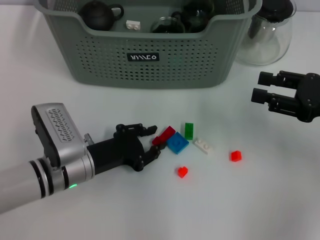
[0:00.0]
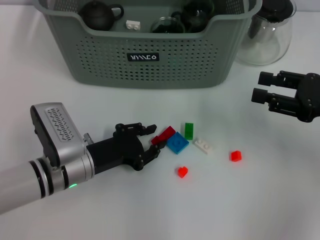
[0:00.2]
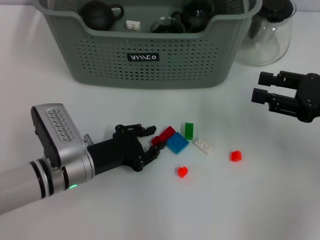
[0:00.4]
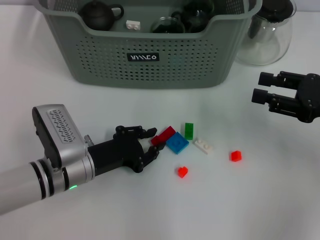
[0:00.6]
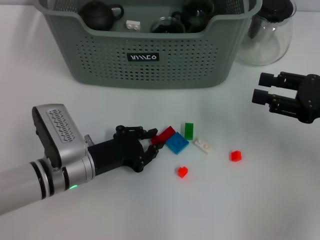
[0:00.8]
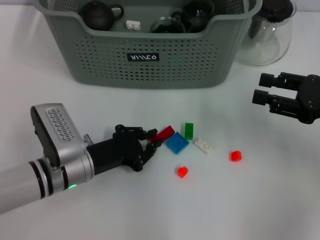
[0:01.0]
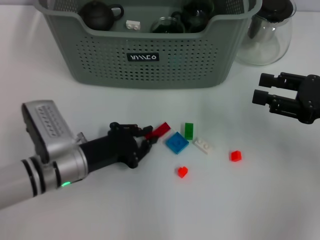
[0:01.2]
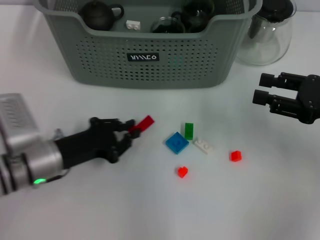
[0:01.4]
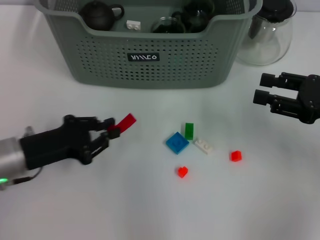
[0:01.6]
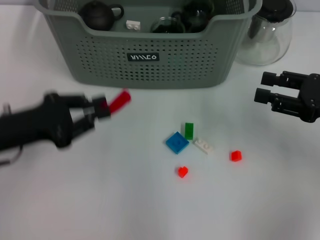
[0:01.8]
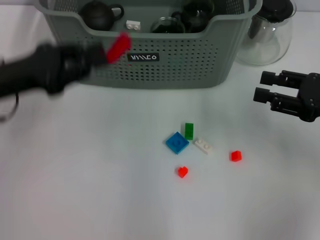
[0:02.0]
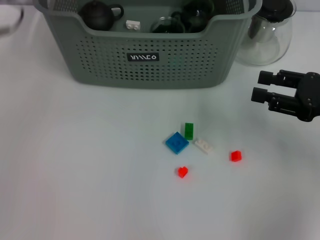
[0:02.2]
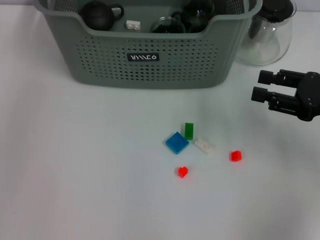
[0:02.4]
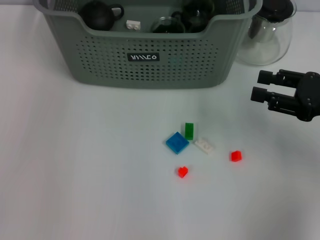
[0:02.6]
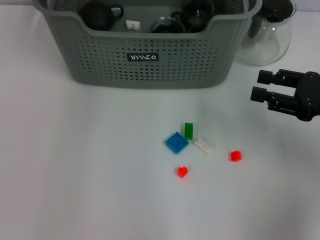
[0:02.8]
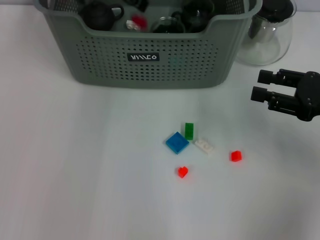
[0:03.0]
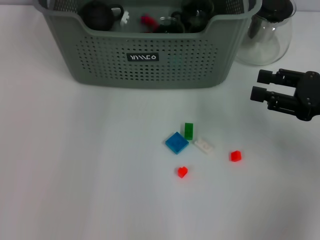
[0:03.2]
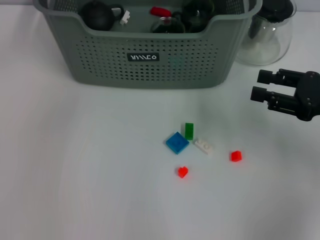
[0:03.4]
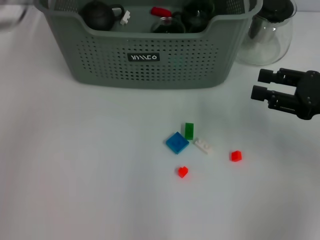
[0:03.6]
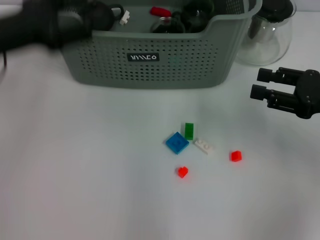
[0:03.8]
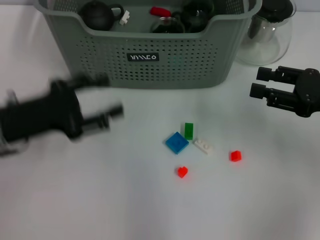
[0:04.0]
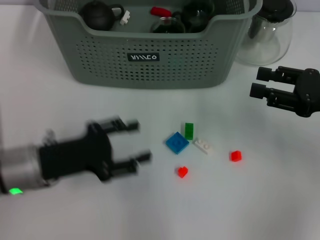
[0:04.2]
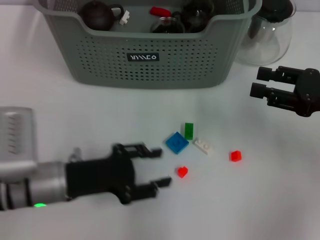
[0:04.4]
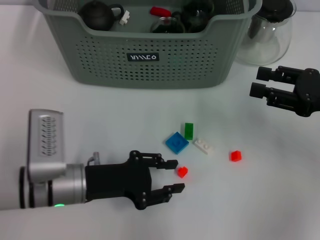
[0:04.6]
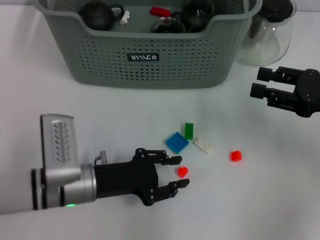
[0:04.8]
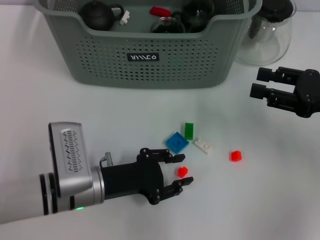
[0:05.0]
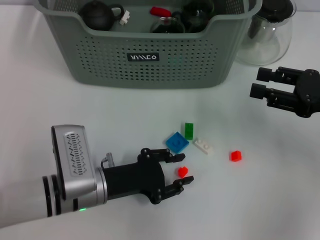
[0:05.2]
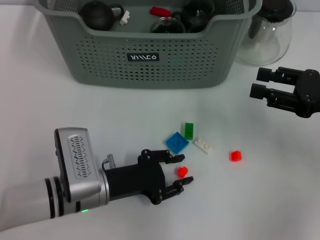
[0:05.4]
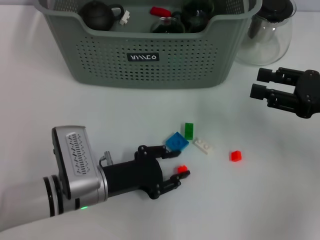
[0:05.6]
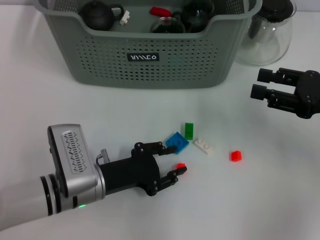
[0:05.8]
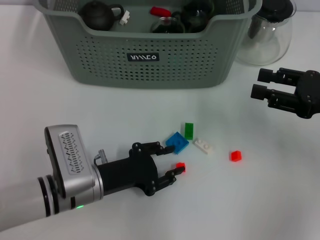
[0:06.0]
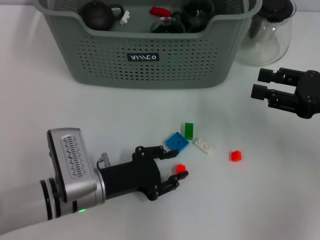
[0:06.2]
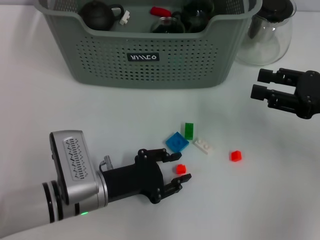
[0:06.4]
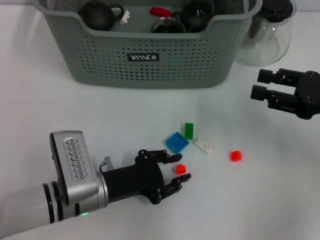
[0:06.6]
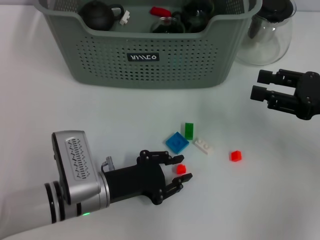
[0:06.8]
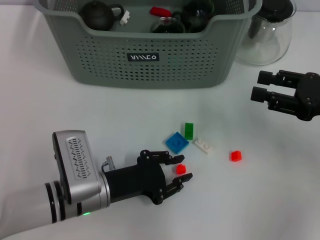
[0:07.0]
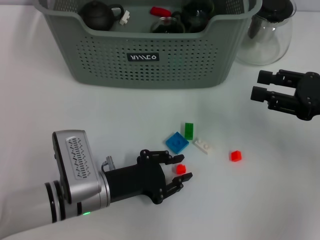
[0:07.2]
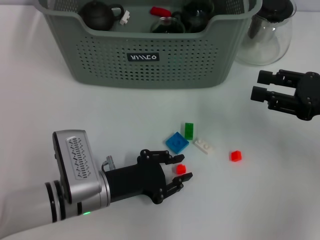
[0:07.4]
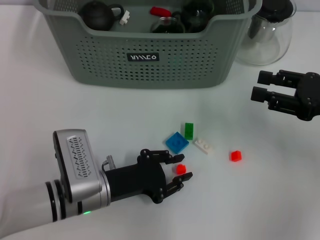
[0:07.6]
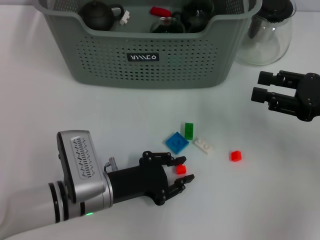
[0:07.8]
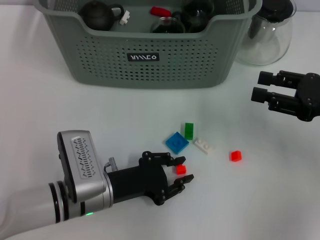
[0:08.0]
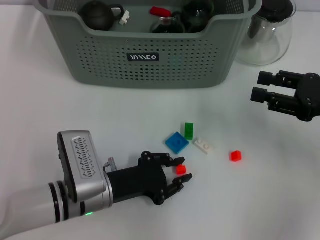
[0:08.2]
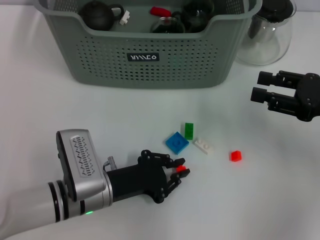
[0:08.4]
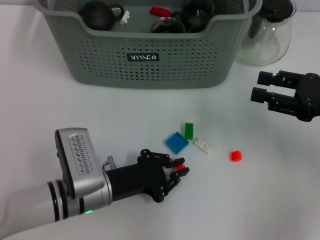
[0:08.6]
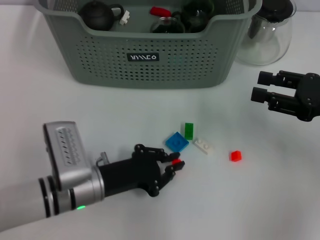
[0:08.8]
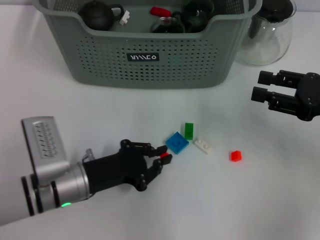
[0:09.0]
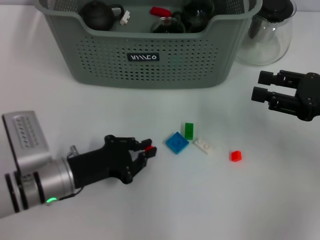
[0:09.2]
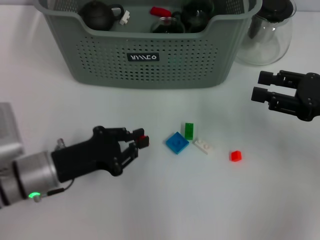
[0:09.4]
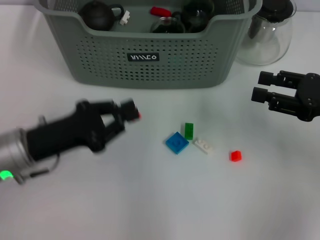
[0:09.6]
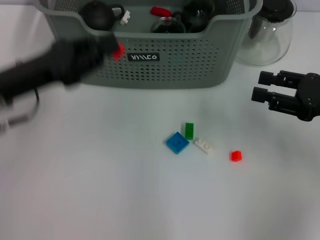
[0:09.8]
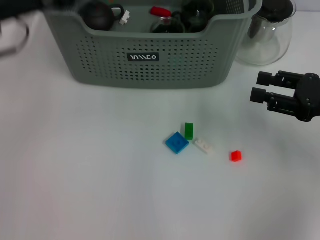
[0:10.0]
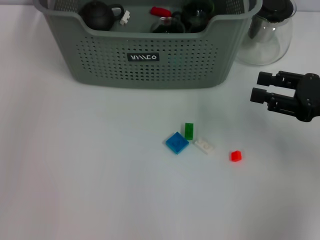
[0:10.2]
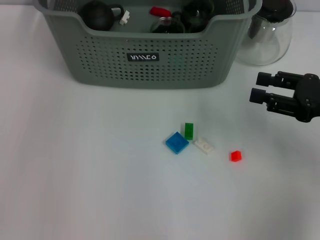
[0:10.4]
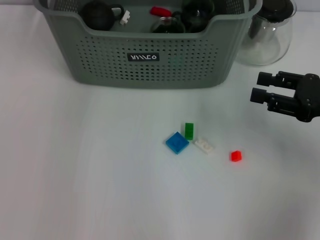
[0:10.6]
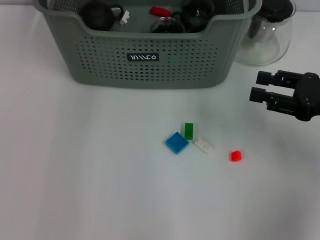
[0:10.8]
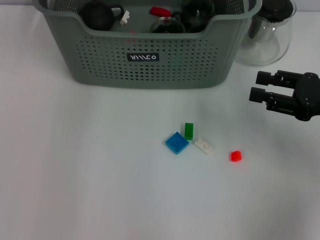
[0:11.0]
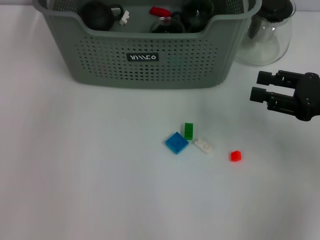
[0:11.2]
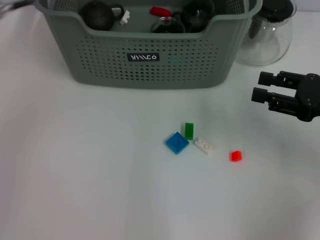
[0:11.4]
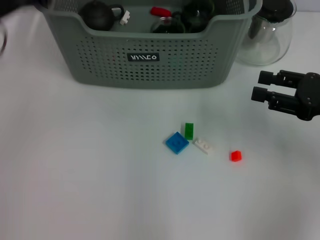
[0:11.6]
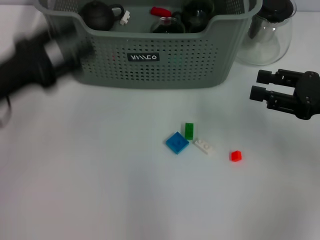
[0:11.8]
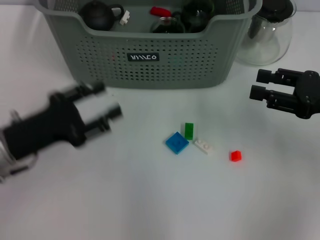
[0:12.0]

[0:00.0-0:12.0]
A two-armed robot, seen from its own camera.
Task of the whole recording: pick up the teacup on the table and place it into the storage bin, pick up the block on the table and place it into the storage bin.
Step, 0:01.2 to 0:03.4: Place the red block in the storage box with left gripper.
Step, 0:03.6 to 0:08.6: Grasp the orange block with left gripper.
Step, 0:08.8 to 0:11.2: Place the orange block in the storage box with left gripper.
0:00.0 to 0:01.6: The left gripper is displaced to the left by approximately 10 cm.
0:01.6 to 0:03.0: The left gripper is displaced forward, upward and to the right by some 30 cm.
0:03.0 to 0:04.4: The left gripper moves backward and downward, approximately 30 cm, and opens up.
0:04.4 to 0:06.0: The left gripper shifts by approximately 5 cm.
0:06.0 to 0:07.6: Both grippers stay about where they are.
0:07.6 to 0:09.0: The grippers stay close to where they were, moving slightly.
0:09.0 to 0:10.4: The left gripper moves upward and forward, approximately 35 cm.
0:10.4 to 0:12.0: The left gripper goes approximately 30 cm backward and downward, and opens up.

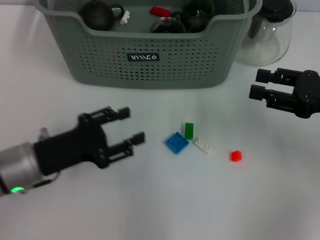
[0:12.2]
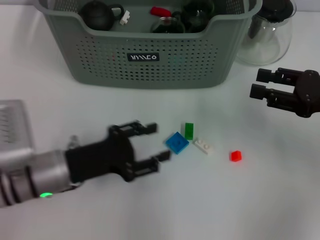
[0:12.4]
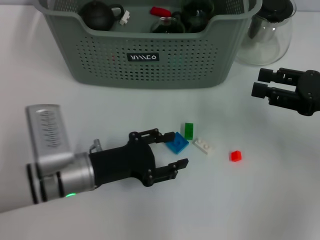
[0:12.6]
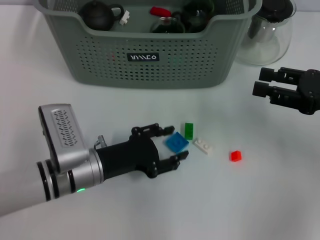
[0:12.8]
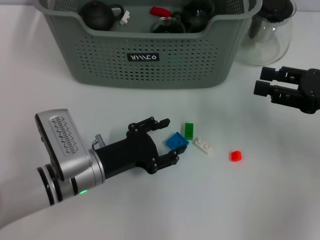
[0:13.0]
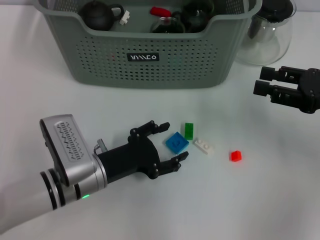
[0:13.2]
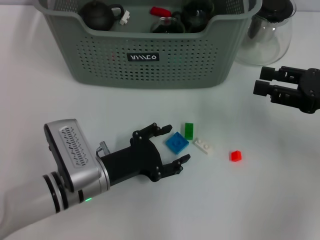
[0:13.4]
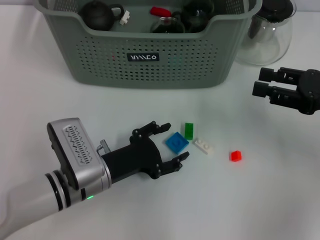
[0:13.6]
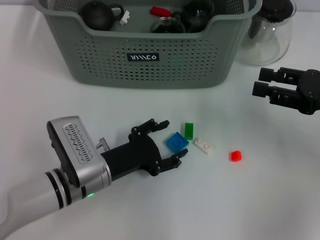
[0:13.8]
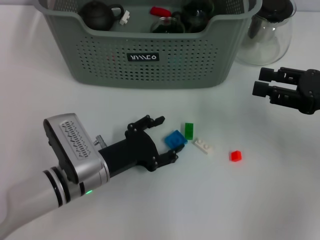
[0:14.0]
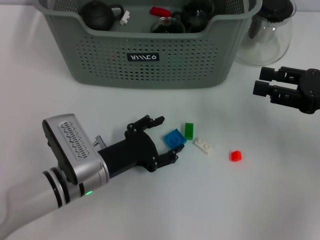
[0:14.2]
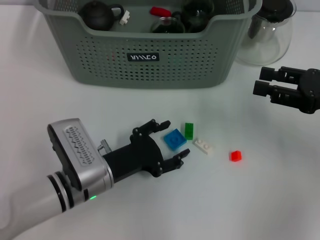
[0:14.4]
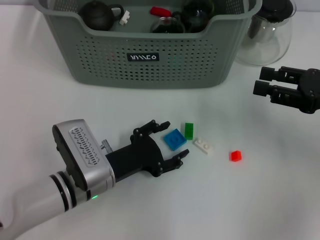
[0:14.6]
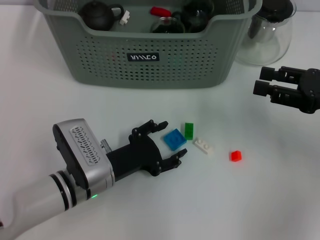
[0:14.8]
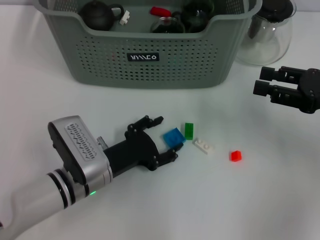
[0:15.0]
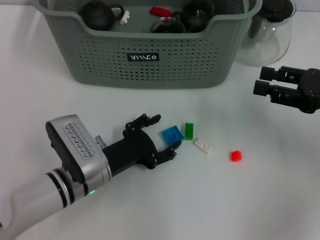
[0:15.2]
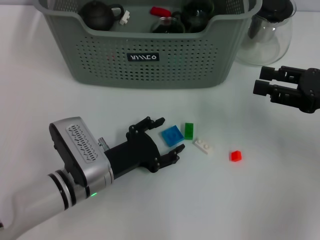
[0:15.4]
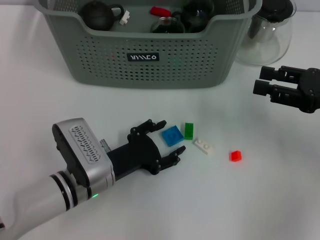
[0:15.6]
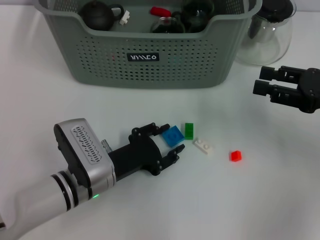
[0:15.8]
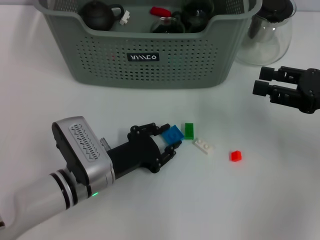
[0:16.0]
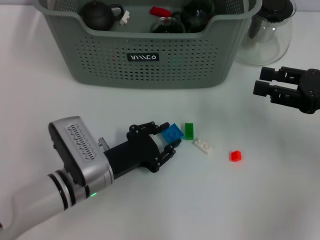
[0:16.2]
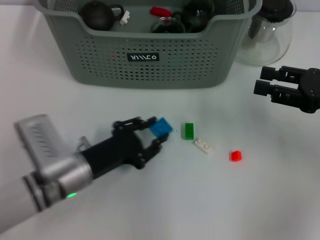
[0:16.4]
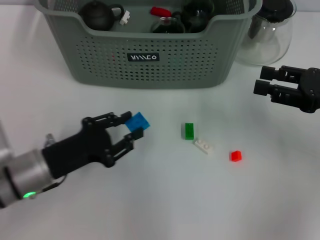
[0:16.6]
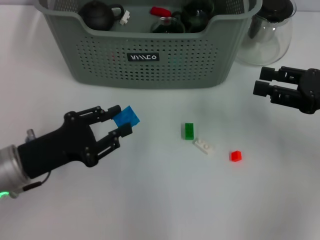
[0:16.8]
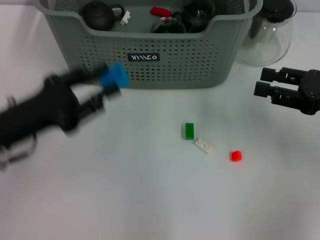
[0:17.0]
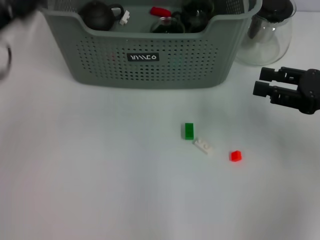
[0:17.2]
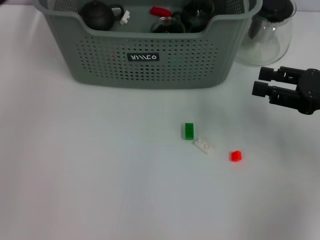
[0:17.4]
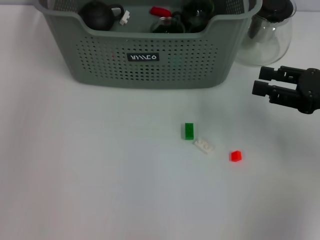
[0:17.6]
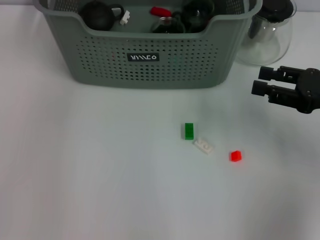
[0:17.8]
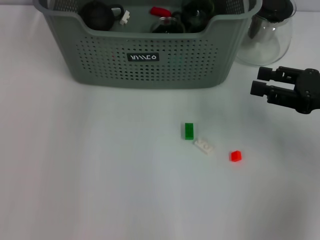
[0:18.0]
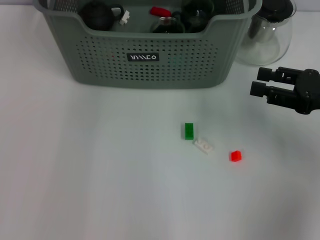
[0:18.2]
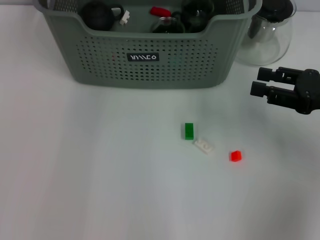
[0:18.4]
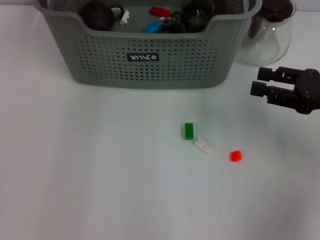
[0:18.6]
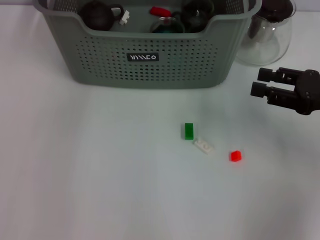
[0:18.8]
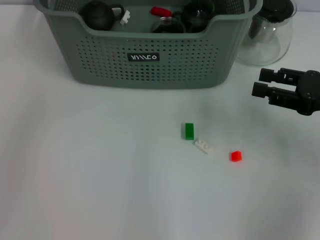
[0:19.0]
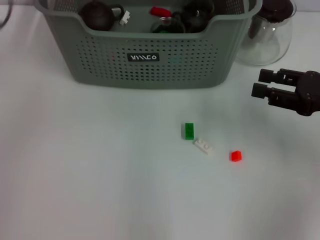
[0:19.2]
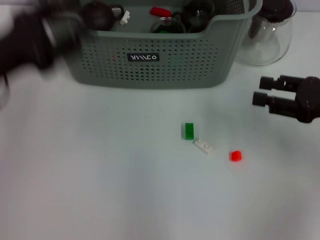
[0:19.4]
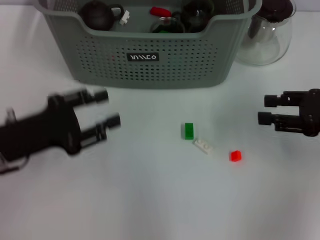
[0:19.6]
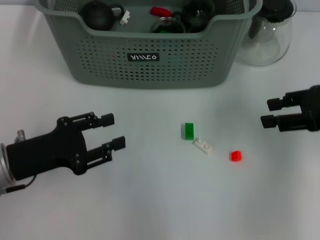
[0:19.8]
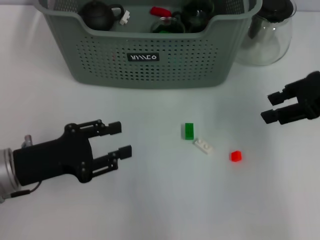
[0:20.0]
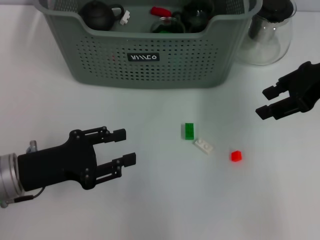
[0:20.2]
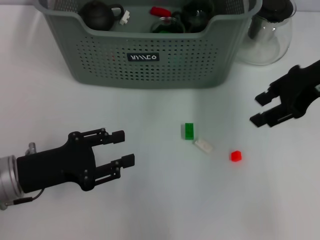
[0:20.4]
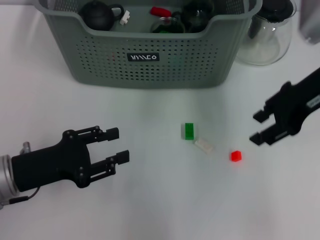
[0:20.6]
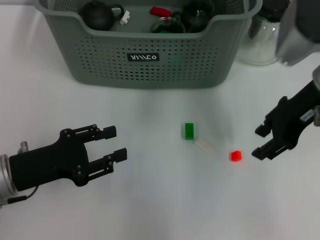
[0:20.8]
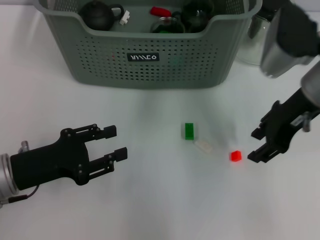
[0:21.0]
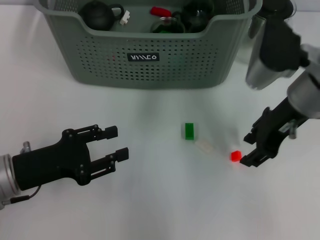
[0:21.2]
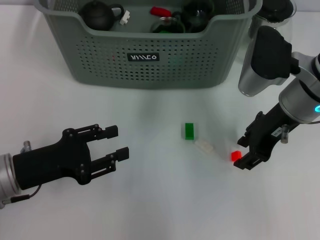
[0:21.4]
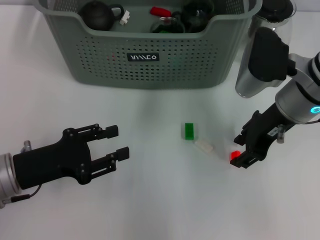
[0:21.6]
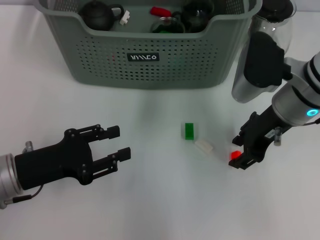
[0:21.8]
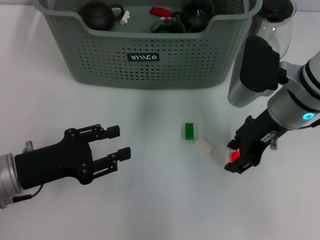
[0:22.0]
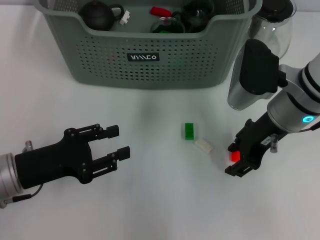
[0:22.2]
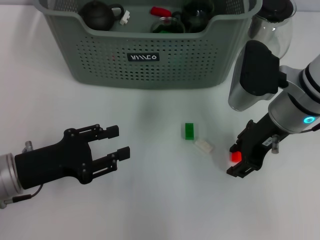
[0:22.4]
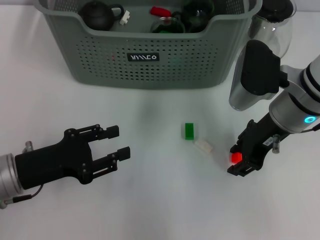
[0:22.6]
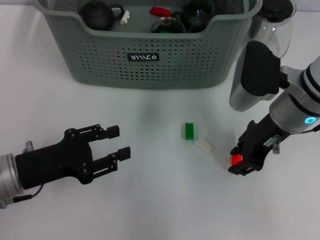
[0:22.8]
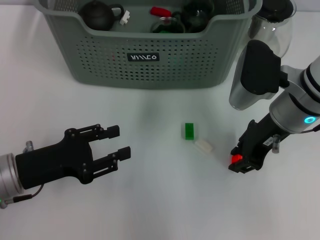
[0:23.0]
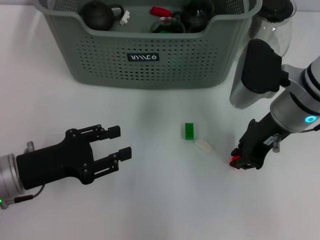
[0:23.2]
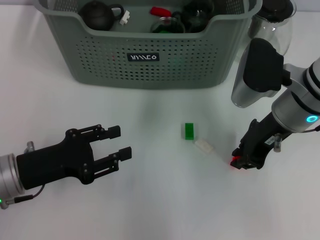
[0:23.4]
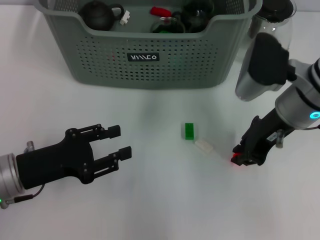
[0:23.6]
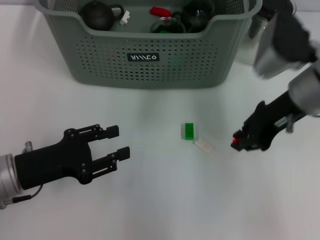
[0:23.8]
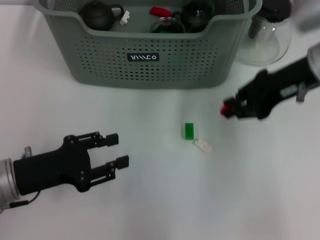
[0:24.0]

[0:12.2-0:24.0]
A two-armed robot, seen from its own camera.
Task of the whole recording: pick up the teacup on the table and place it into the storage bin, pick up the block on the table and place it into the storage bin.
Step, 0:12.2 to 0:16.2: Grasp the dark blue block with left gripper.
Step, 0:16.4 to 0:19.0: Place the dark blue block in the storage box with left gripper.
Step, 0:19.2 to 0:23.4: Grasp the orange block with right gripper.
0:12.2 to 0:13.6: The left gripper heads to the right and downward, covering roughly 10 cm.
0:13.6 to 0:15.2: There are only small adjustments of the grippers.
0:15.2 to 0:16.6: The left gripper travels to the left by approximately 10 cm, and closes up.
0:16.6 to 0:18.2: The left gripper goes approximately 30 cm forward and upward.
0:18.2 to 0:19.6: The left gripper heads backward, downward and to the left, covering roughly 30 cm.
0:19.6 to 0:21.0: The right gripper heads to the left and upward, covering some 15 cm.
0:21.0 to 0:22.6: The right gripper moves roughly 5 cm.
0:22.6 to 0:24.0: The right gripper goes some 5 cm upward, and closes up.
